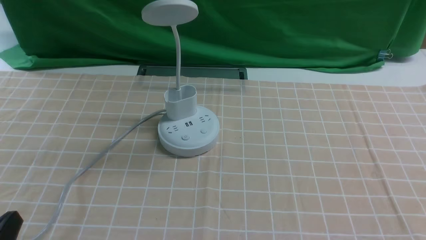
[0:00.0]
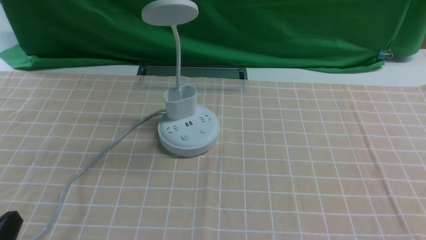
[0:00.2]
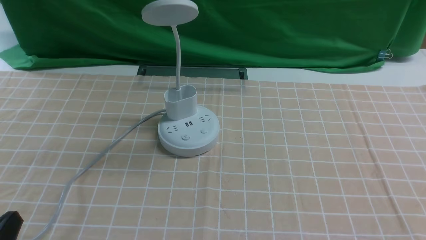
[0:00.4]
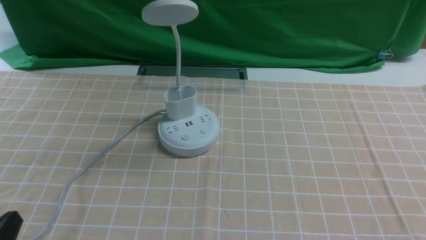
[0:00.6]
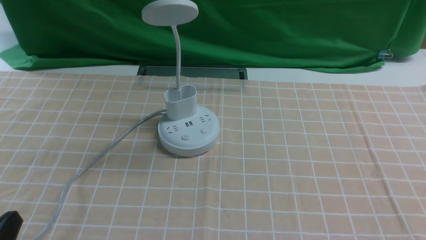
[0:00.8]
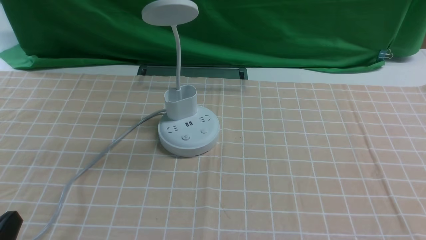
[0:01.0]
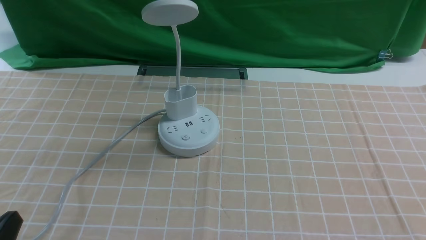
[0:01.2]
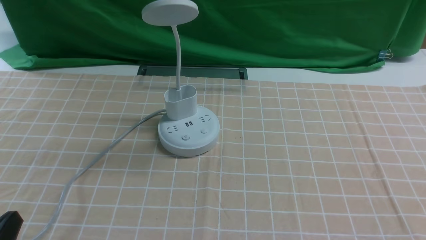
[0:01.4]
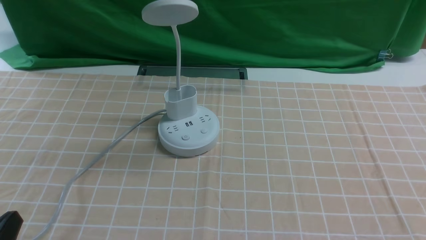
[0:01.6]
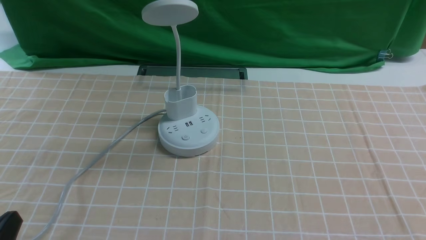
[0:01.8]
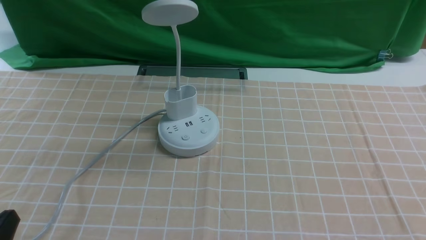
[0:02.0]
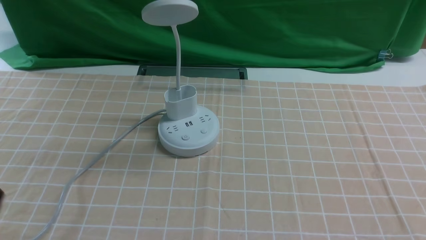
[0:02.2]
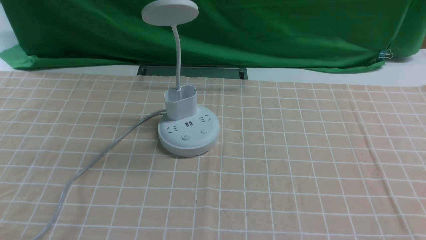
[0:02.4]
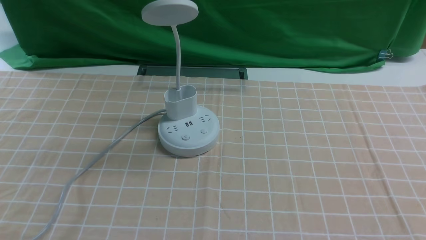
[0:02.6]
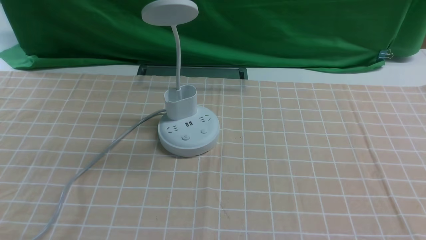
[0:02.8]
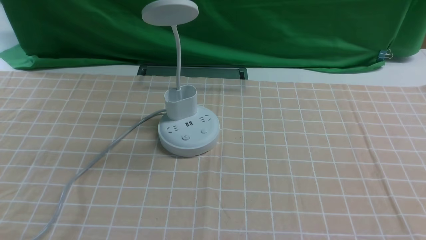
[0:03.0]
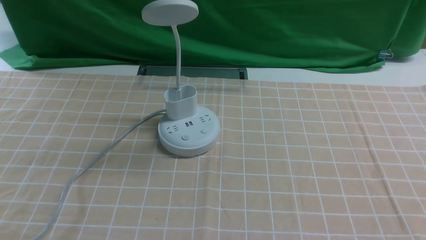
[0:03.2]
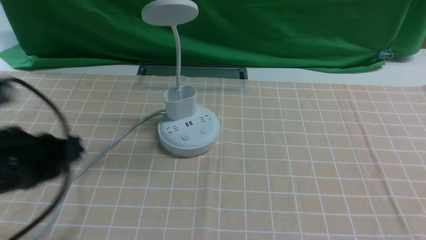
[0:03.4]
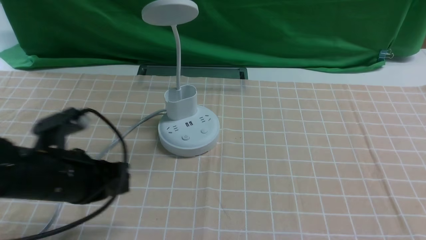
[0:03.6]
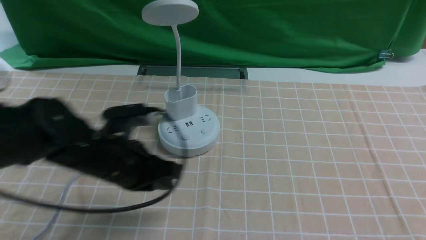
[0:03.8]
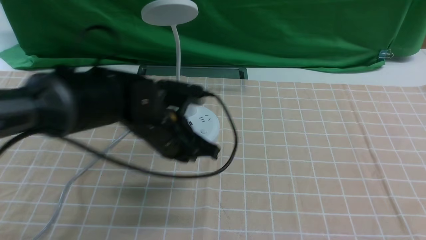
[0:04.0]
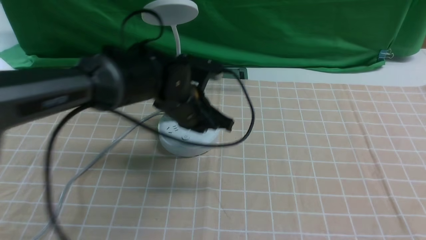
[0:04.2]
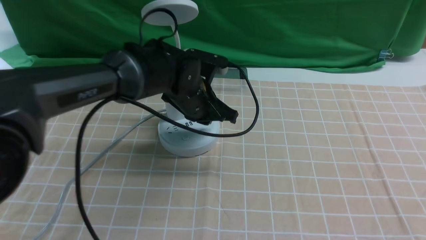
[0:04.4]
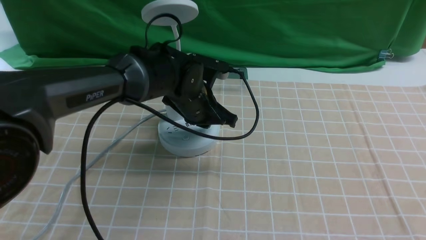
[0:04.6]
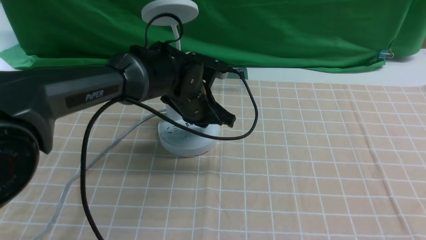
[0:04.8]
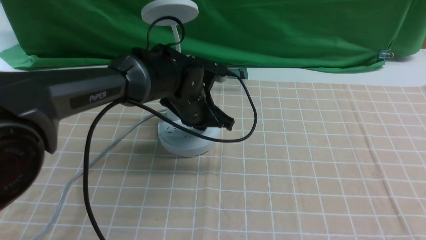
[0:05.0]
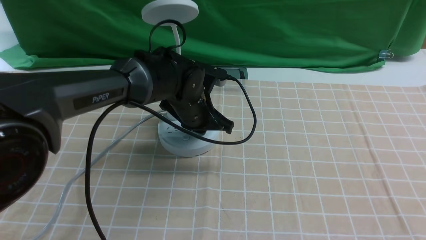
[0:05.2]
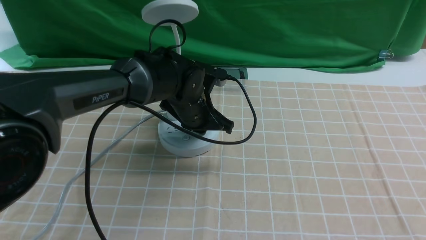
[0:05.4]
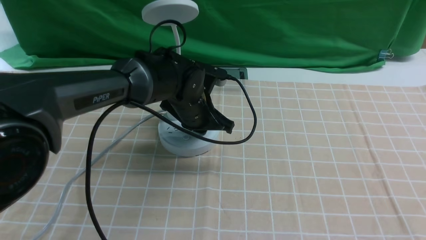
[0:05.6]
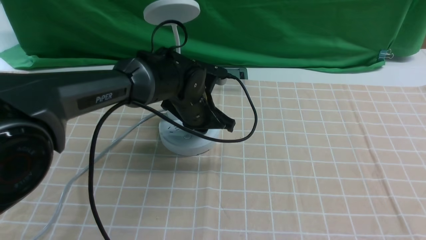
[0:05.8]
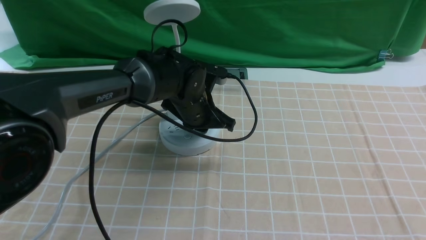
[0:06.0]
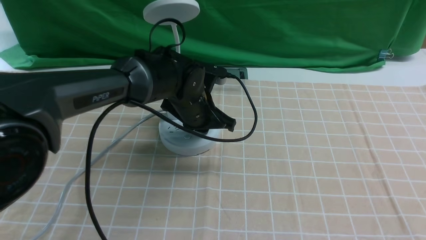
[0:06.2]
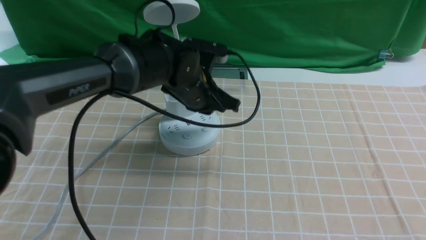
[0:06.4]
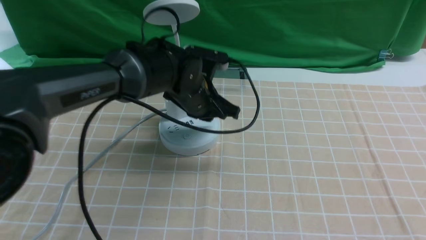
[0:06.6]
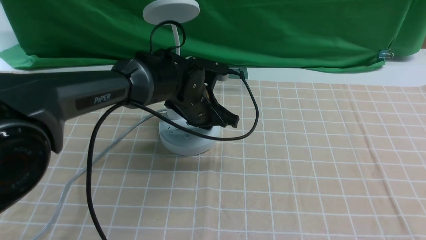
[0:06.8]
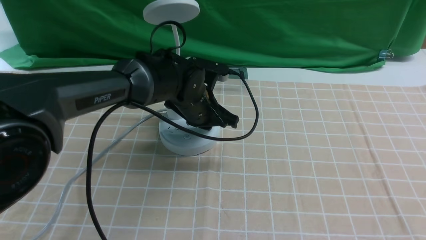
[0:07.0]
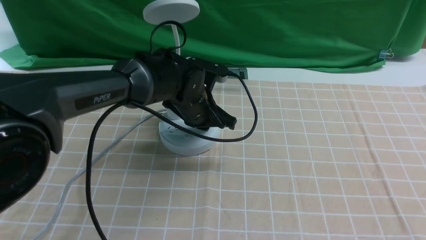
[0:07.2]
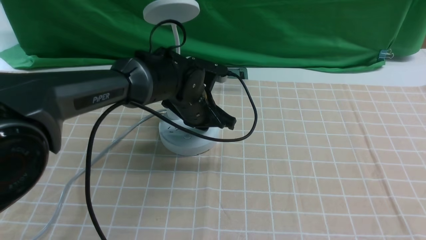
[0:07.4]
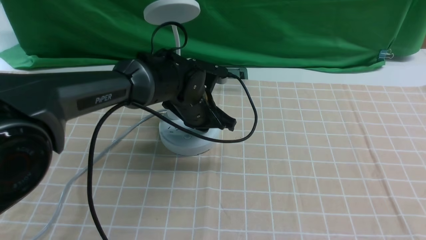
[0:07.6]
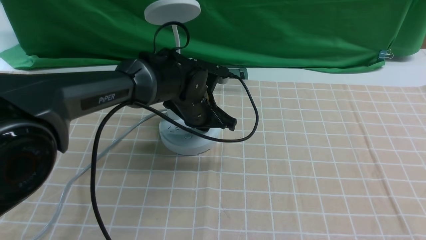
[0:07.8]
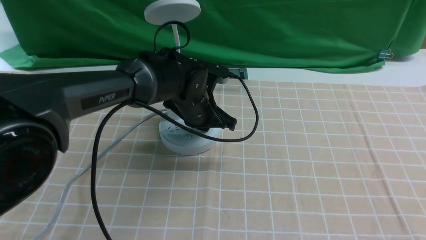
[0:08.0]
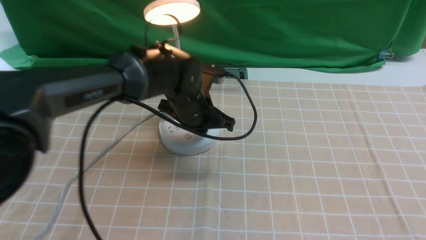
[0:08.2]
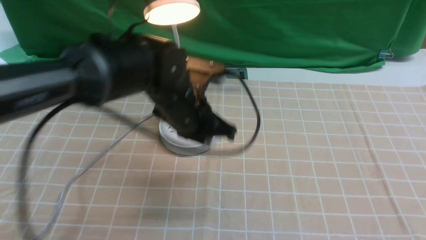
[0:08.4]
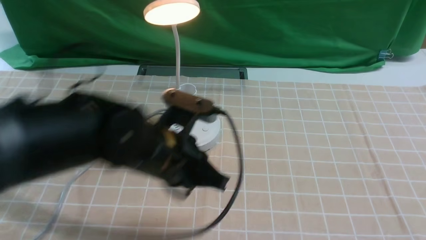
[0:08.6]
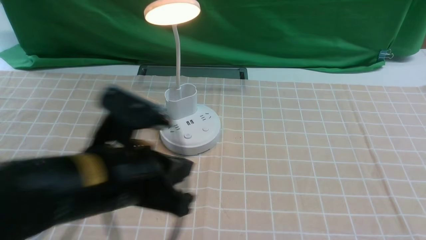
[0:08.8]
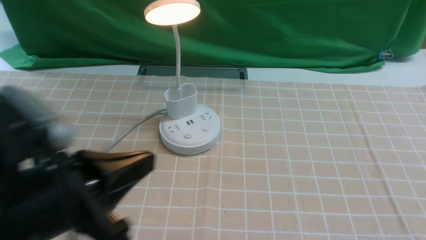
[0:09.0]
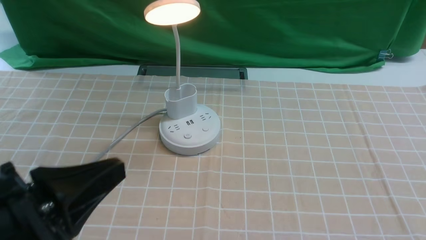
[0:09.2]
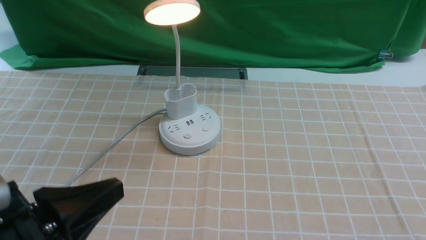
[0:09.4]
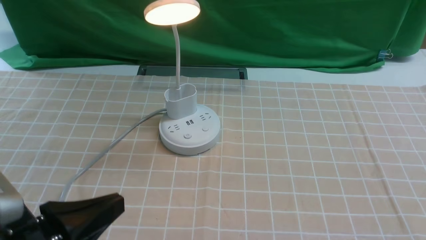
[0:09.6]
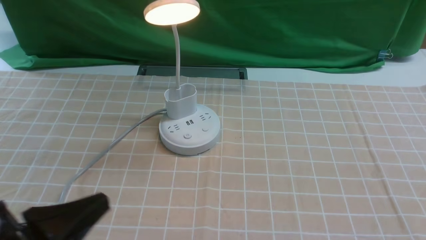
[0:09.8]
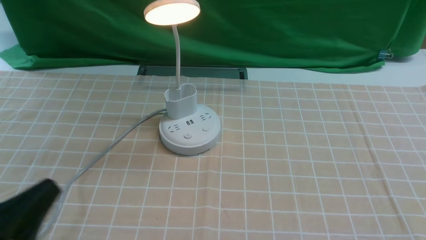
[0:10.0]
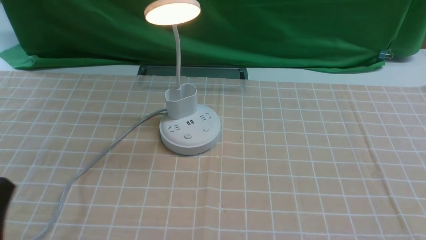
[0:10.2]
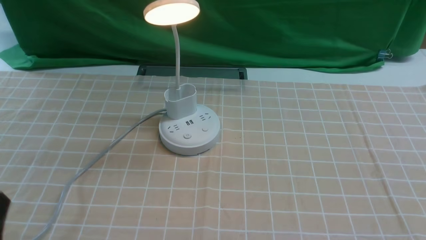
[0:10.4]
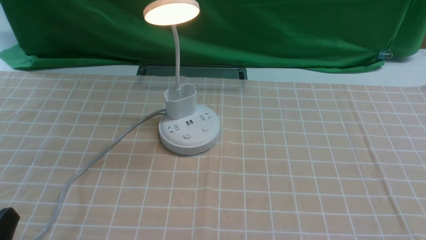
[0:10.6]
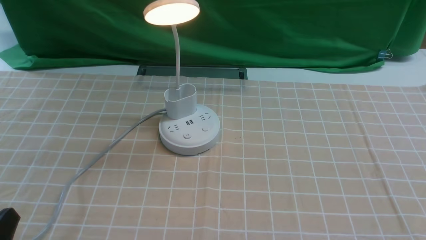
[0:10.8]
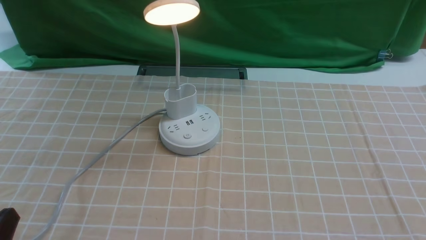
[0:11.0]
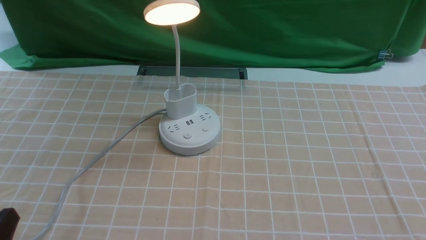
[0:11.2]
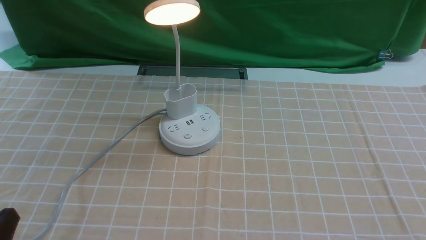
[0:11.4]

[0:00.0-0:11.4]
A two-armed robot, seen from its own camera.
Step, 0:00.0 to 0:08.4: use the left arm to press the button switch on the lamp holder.
0:02.8 to 0:04.2: The left gripper is displaced forward and to the right by some 35 cm.
0:04.2 to 0:05.6: The left gripper is displaced forward by approximately 5 cm.
0:05.6 to 0:07.2: The grippers stay close to where they were, moving slightly.
0:07.2 to 0:08.6: The left gripper moves backward and upward, some 15 cm.
0:08.6 to 0:10.0: The left gripper travels backward and to the left by approximately 25 cm.
0:10.0 to 0:11.4: The left gripper is displaced downward by about 5 cm.

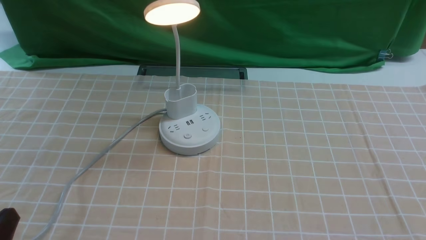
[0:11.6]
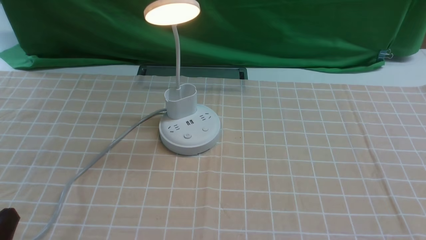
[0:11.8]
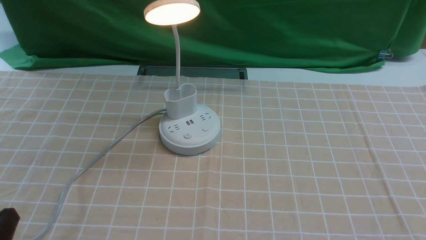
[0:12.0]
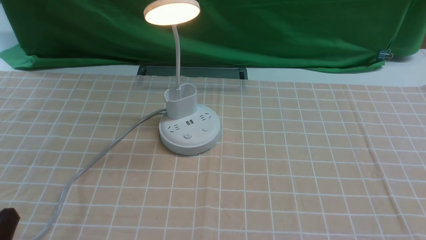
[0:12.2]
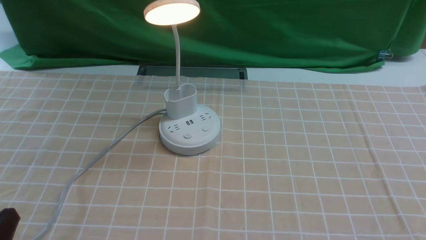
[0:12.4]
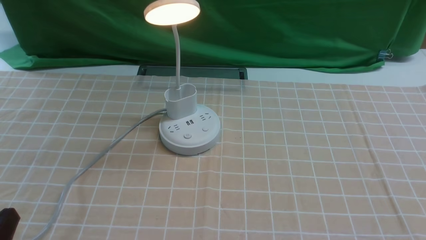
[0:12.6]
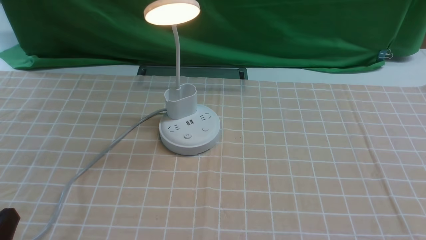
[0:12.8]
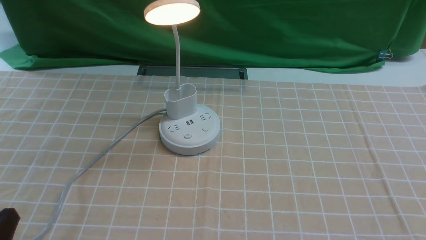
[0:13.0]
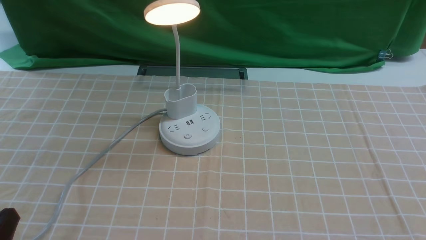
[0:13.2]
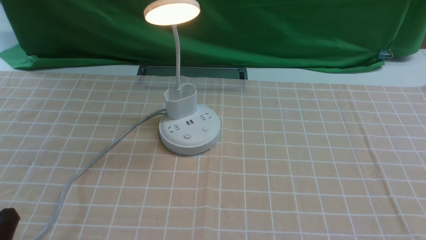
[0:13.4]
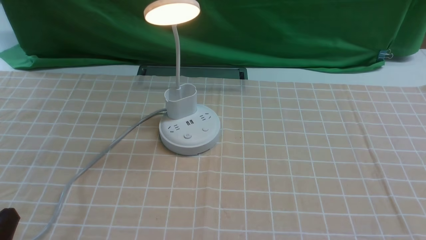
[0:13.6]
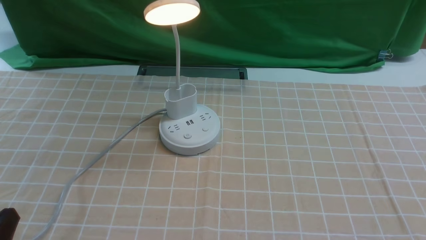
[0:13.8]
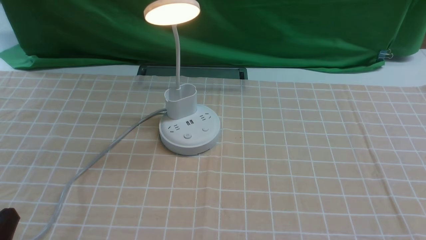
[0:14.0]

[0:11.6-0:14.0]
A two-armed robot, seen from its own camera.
0:11.6 to 0:14.0: Both grippers stay put.
